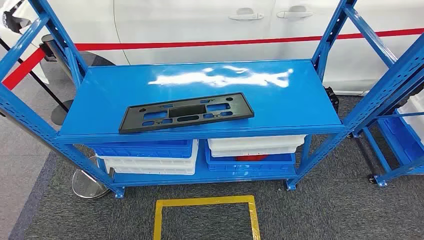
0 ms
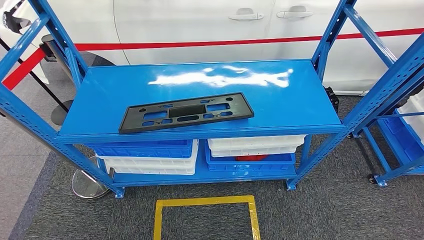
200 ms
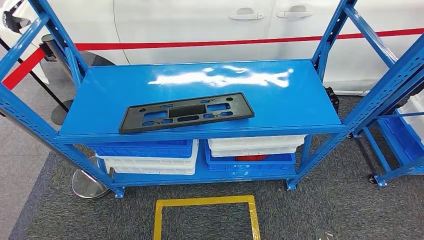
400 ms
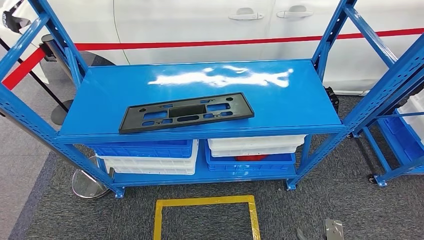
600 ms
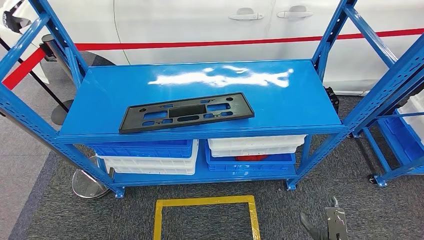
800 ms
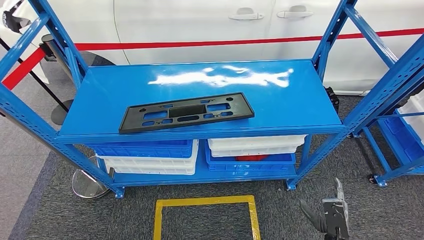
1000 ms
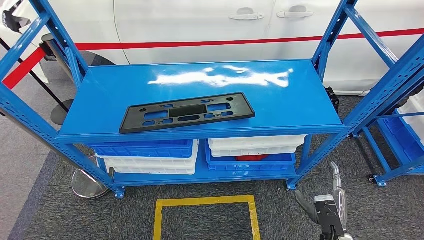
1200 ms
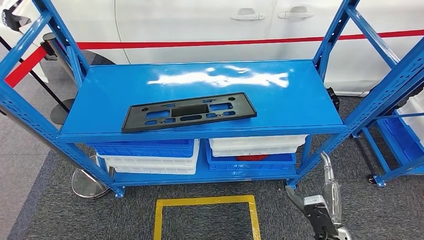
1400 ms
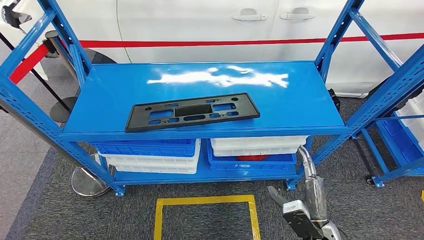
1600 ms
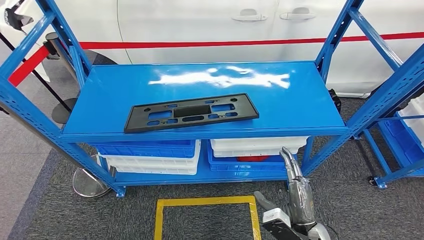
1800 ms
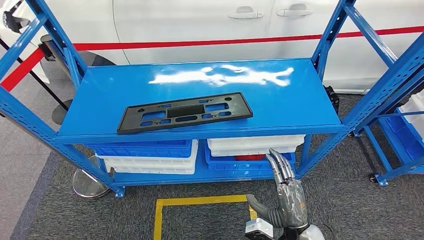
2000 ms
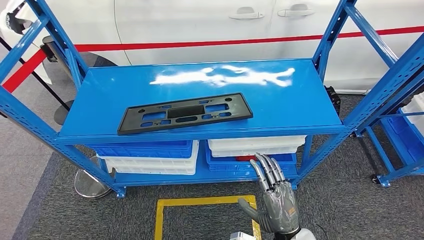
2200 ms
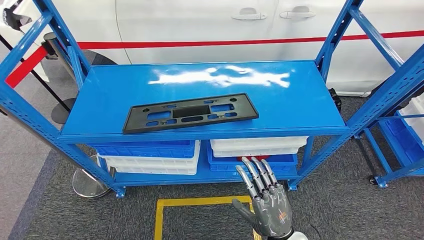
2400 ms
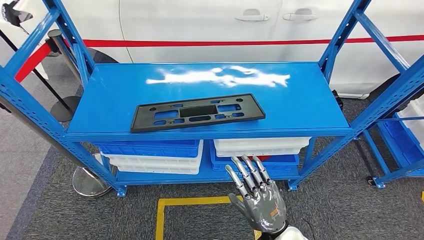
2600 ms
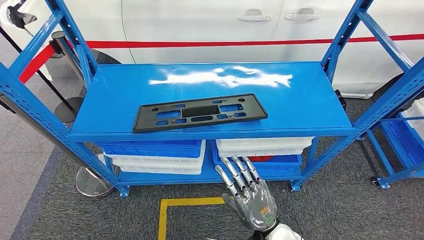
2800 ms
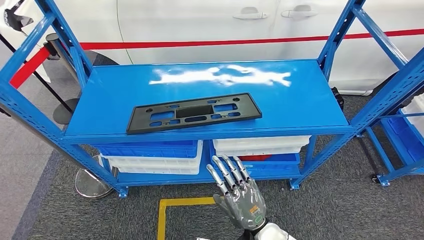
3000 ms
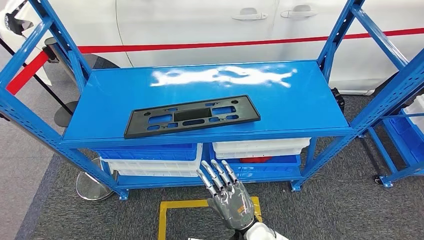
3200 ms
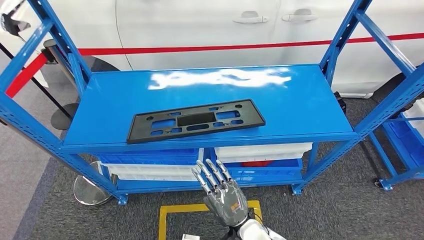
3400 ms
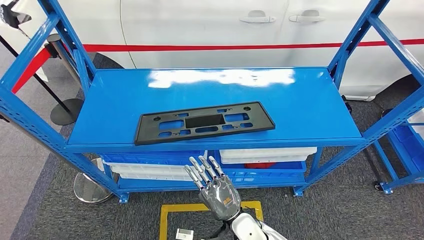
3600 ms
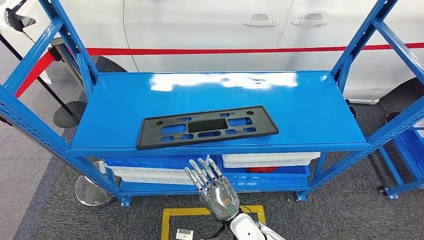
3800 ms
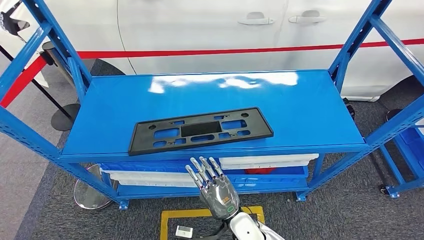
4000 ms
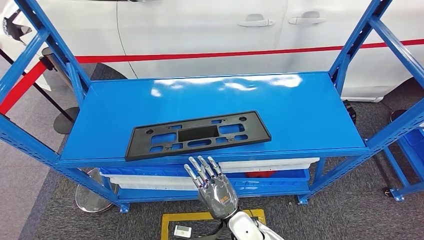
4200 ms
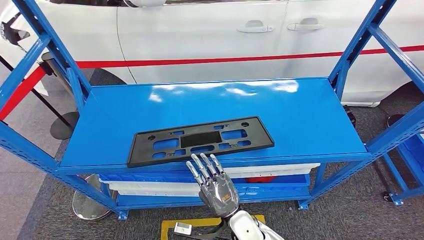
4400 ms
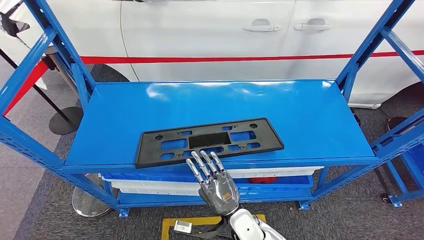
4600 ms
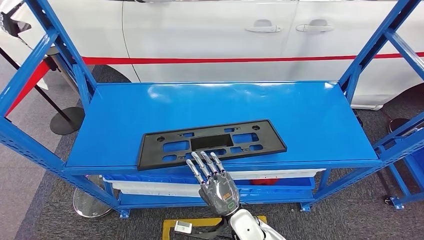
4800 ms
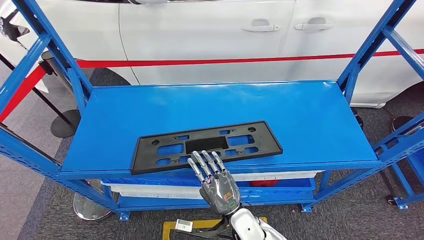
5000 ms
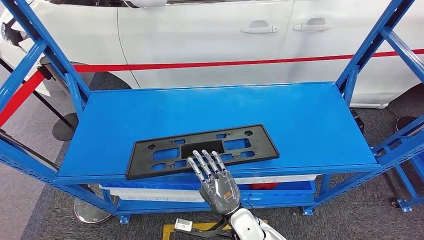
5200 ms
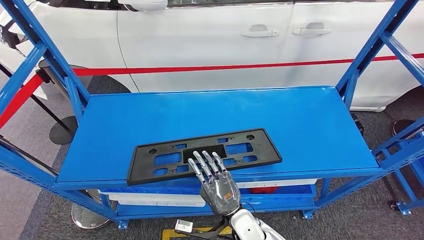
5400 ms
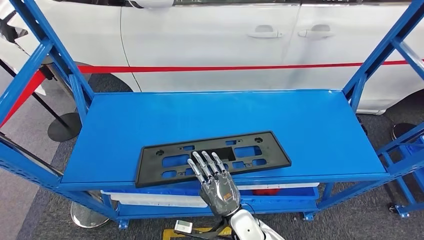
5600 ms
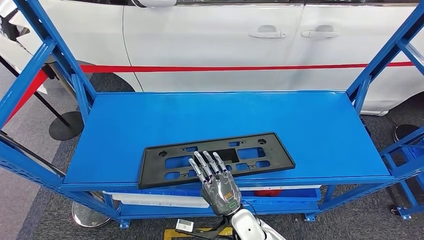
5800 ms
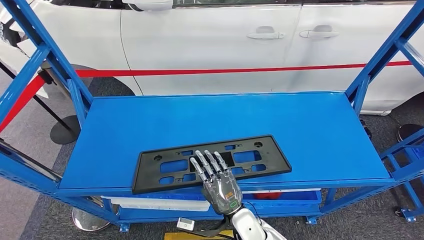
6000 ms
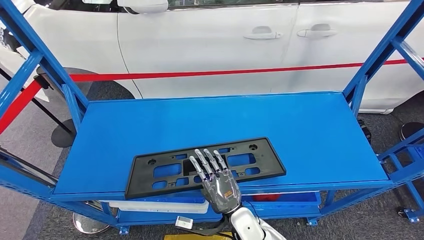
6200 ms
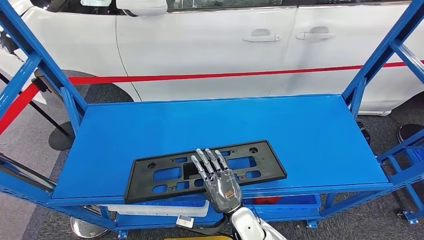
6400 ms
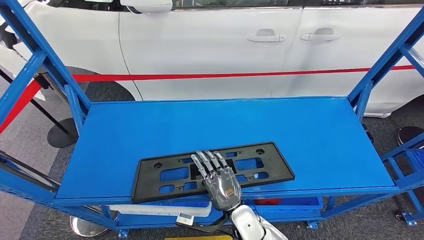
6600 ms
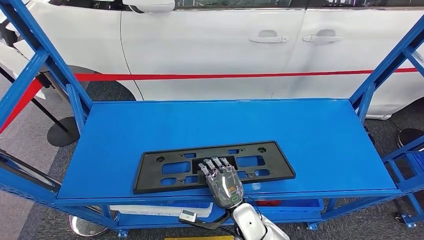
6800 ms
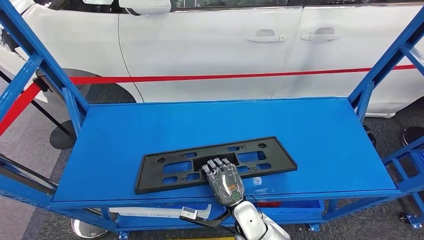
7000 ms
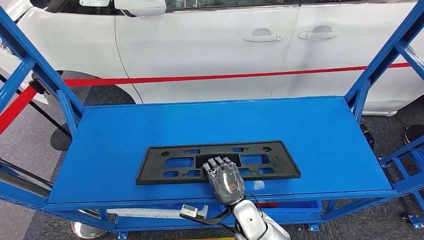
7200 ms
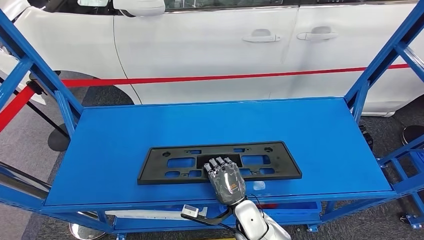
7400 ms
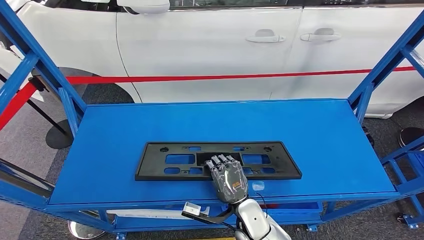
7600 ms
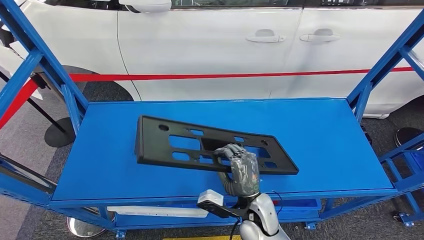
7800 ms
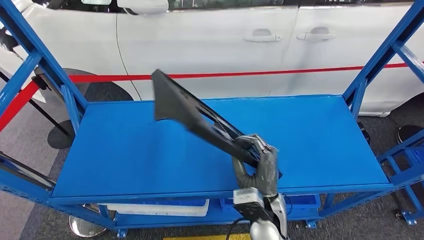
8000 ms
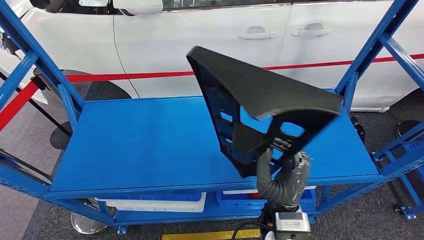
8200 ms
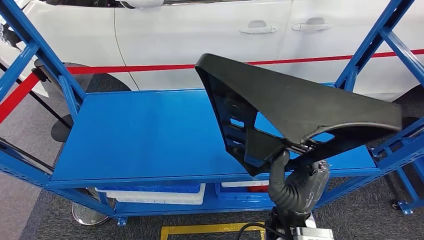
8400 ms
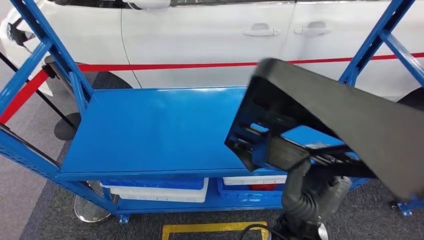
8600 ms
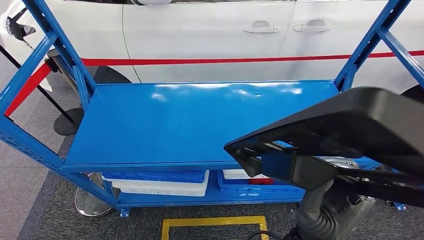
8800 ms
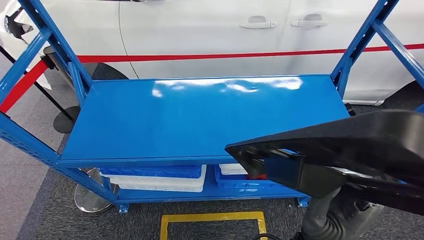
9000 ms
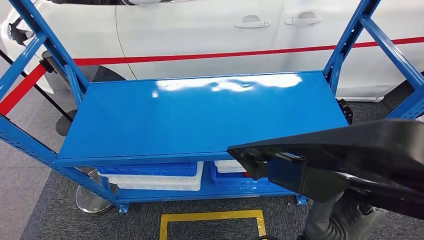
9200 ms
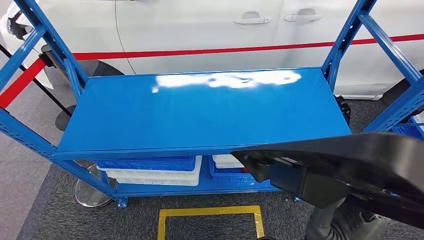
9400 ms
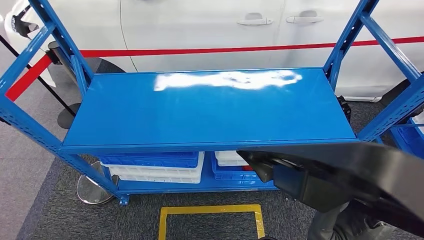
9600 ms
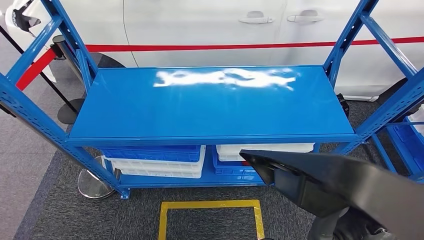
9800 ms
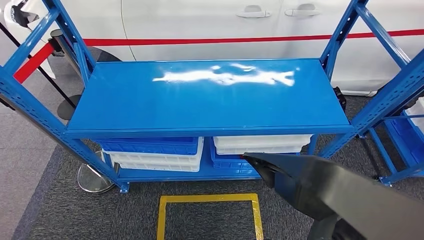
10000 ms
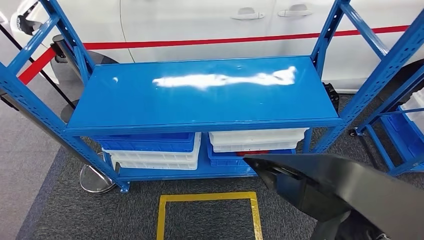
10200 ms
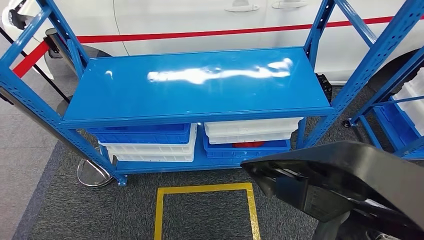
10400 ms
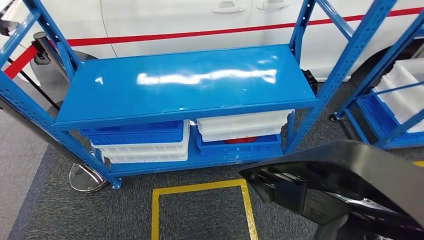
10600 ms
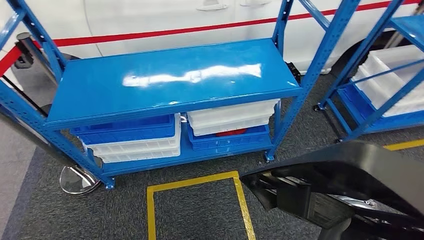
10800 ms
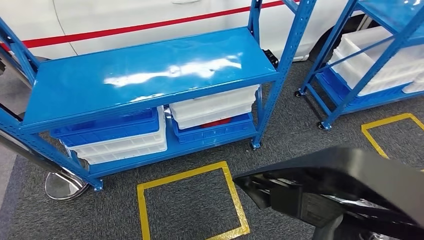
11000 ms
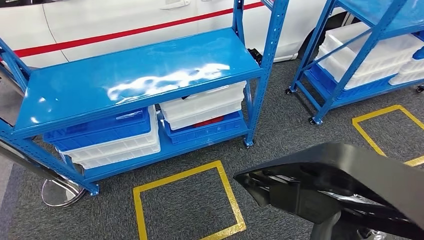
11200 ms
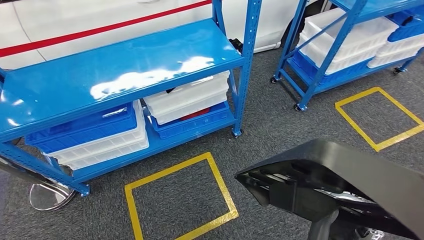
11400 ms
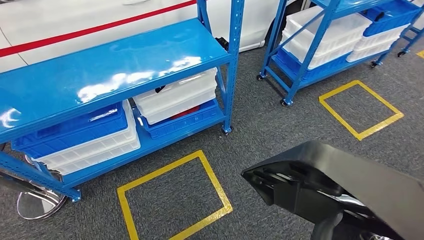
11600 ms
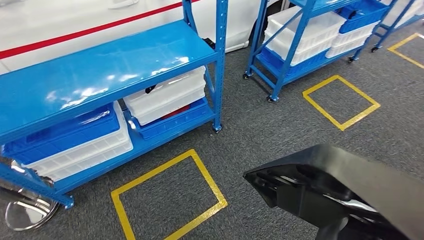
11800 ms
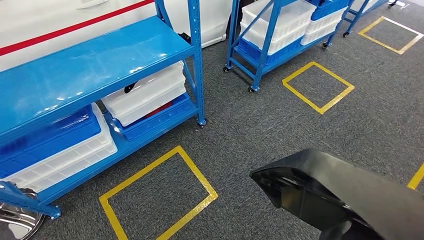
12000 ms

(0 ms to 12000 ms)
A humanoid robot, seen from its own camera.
Step, 0 ms - 10000 ms: Pick up the large parts from the shelf.
1600 ms - 3000 ms: The right hand travels to the left by some 15 cm.

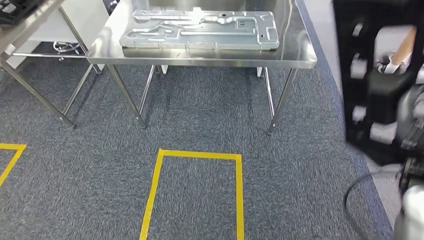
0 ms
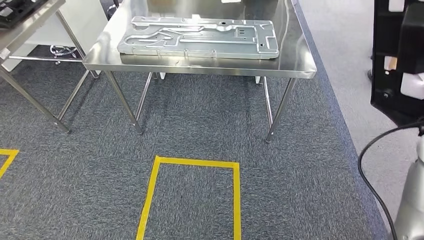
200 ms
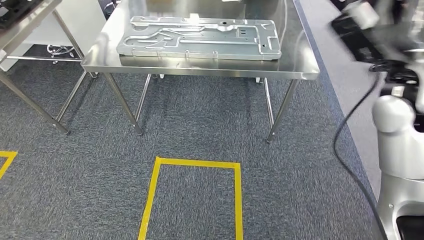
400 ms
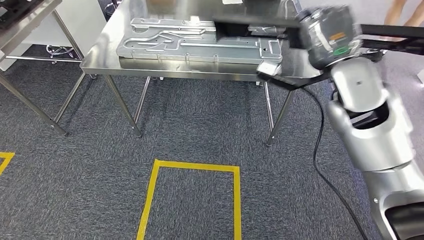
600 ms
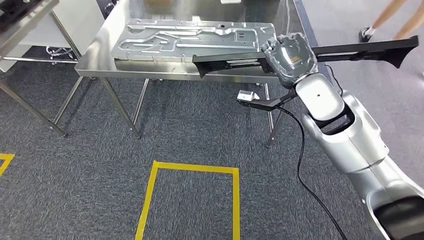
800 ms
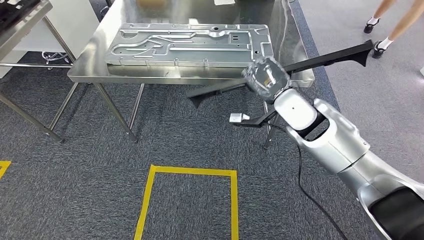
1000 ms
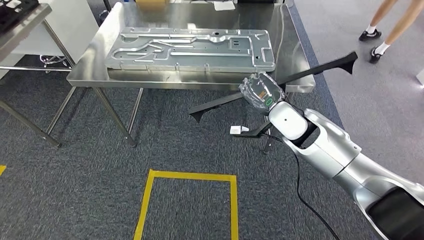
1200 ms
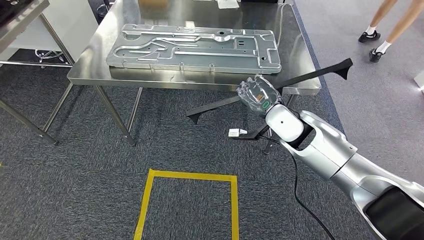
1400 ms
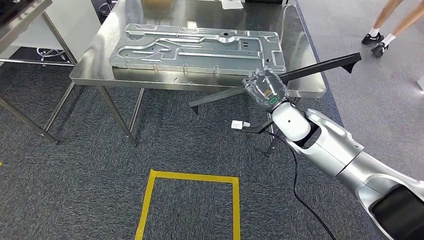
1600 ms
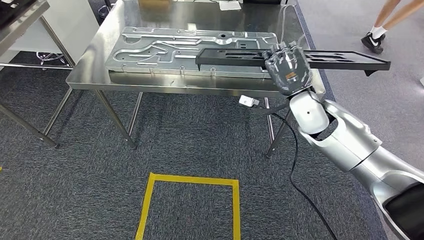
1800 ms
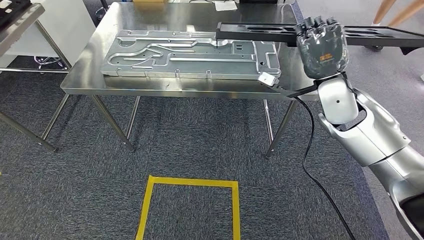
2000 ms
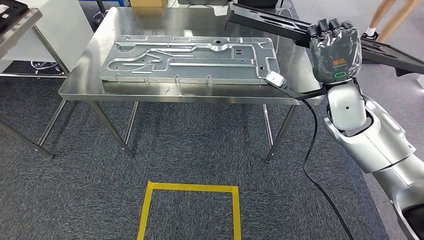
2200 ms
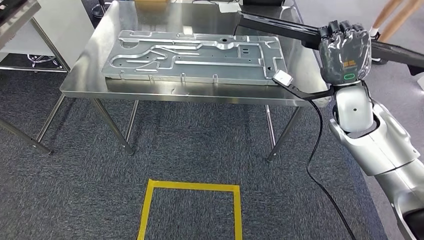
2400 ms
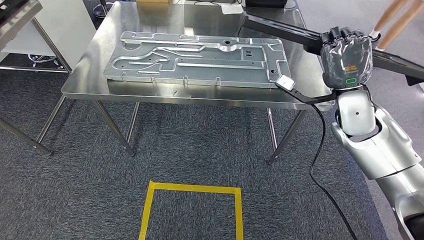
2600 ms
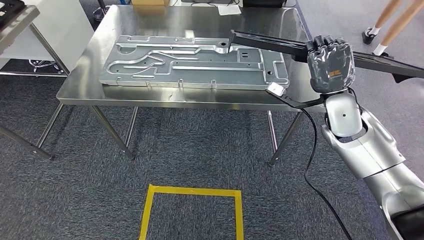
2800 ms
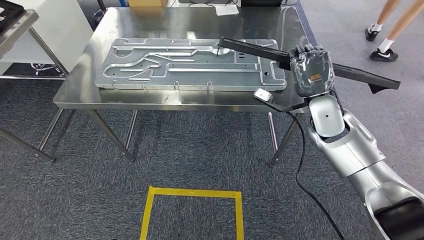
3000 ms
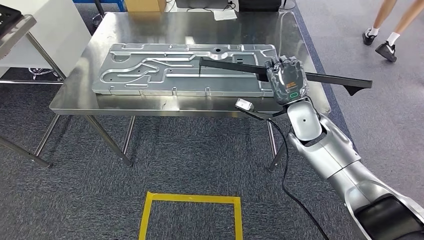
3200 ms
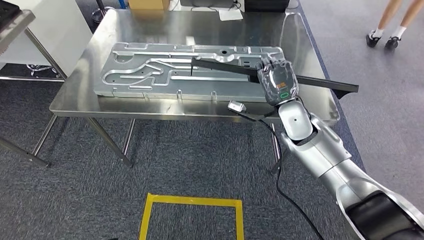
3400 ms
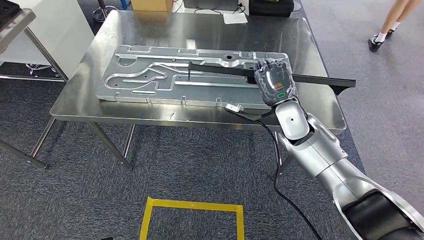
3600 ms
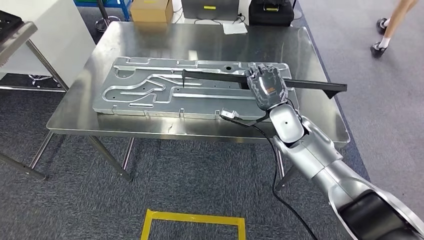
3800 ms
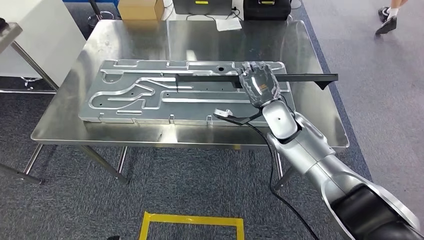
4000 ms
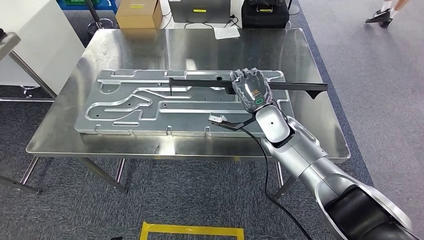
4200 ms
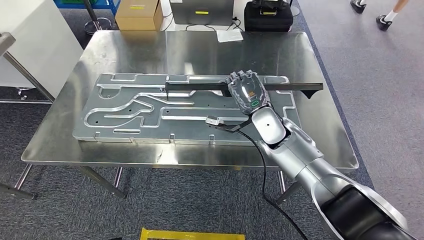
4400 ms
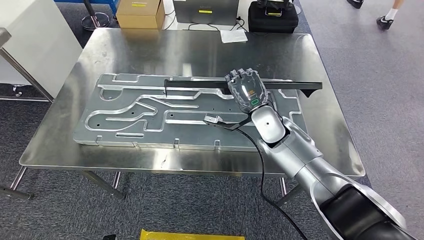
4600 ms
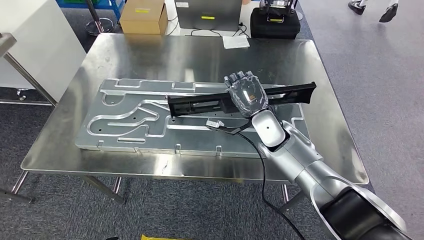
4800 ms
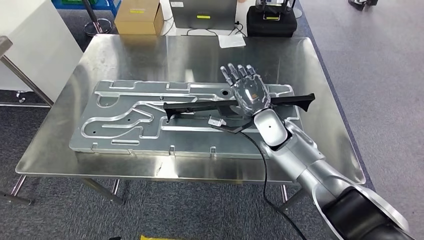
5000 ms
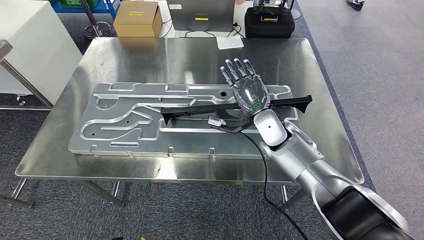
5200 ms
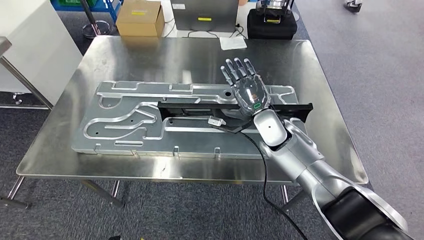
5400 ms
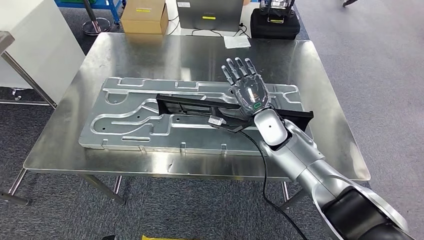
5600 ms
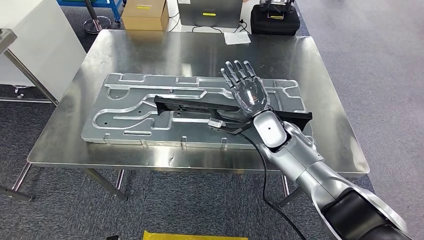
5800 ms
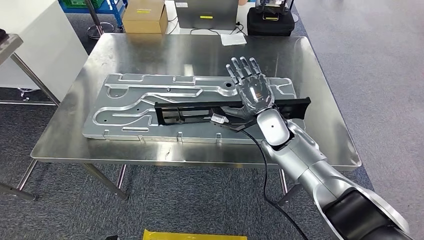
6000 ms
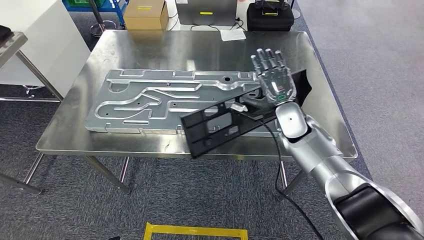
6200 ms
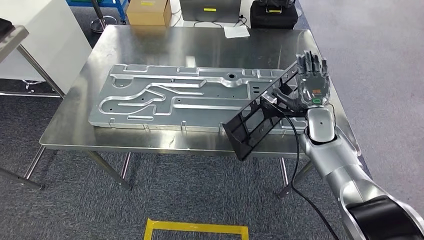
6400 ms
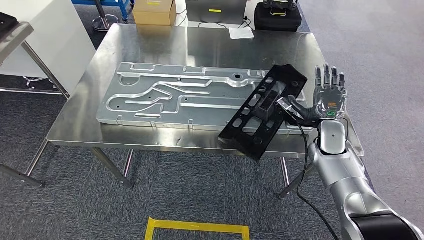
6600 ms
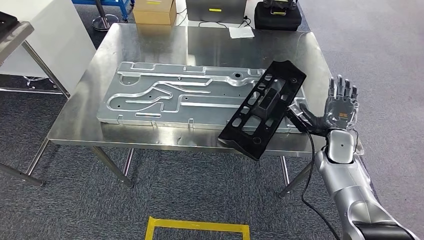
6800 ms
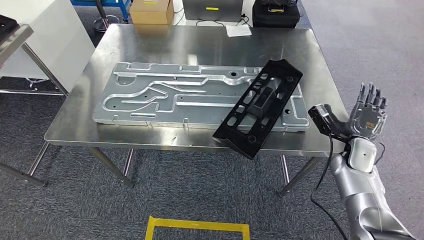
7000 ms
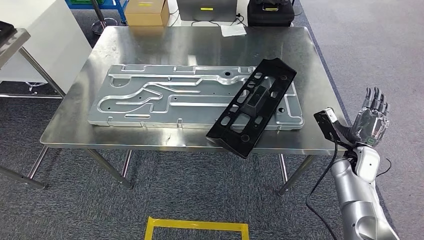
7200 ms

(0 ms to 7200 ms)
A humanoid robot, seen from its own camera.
Step, 0 ms - 3400 ms: Move the large parts to the workbench.
